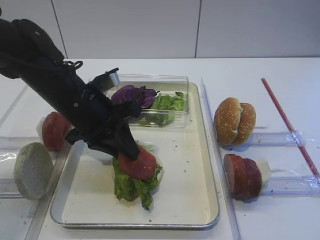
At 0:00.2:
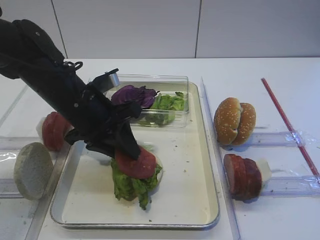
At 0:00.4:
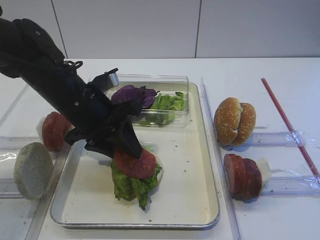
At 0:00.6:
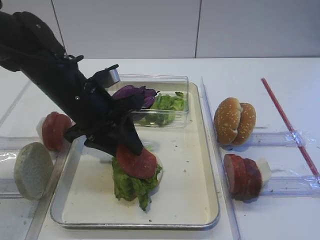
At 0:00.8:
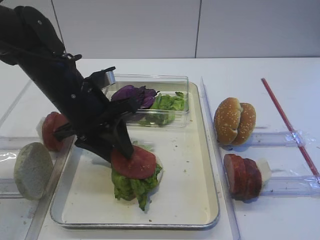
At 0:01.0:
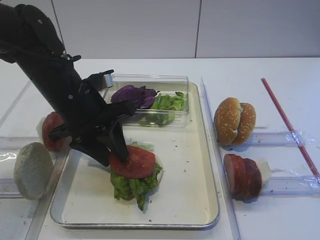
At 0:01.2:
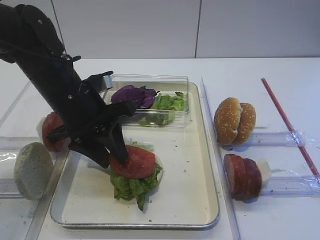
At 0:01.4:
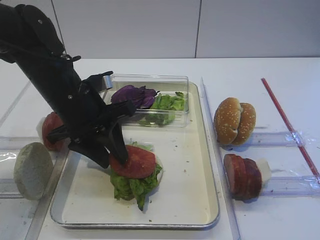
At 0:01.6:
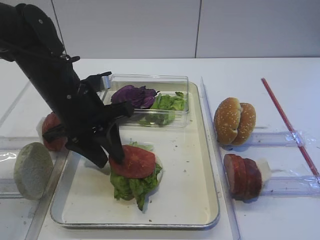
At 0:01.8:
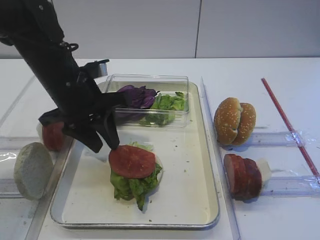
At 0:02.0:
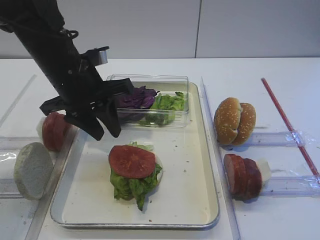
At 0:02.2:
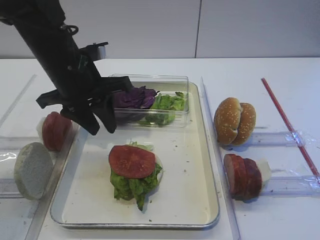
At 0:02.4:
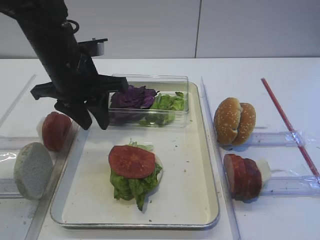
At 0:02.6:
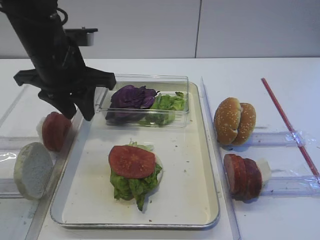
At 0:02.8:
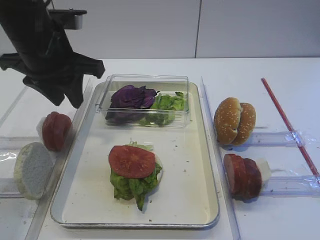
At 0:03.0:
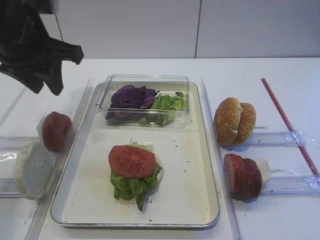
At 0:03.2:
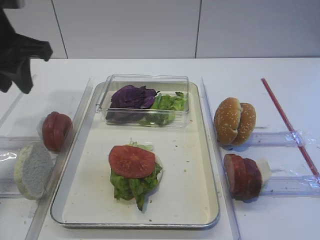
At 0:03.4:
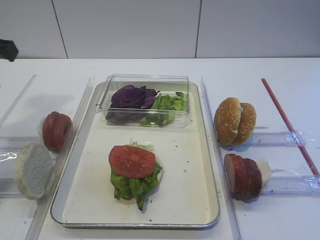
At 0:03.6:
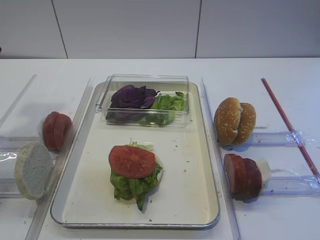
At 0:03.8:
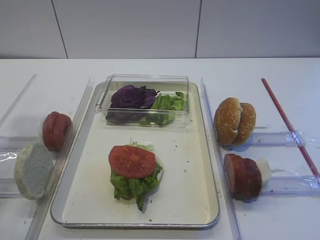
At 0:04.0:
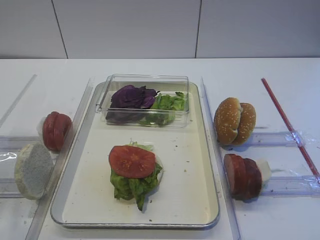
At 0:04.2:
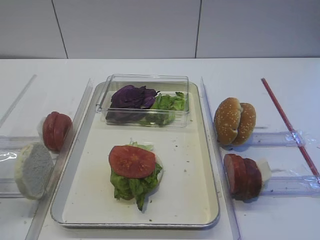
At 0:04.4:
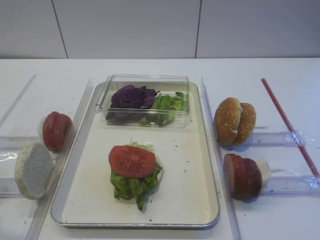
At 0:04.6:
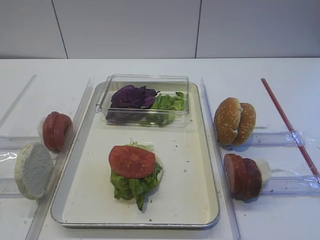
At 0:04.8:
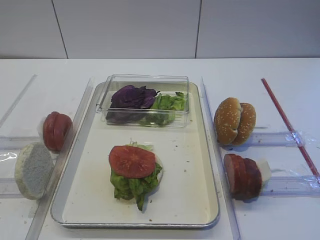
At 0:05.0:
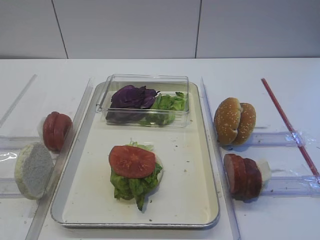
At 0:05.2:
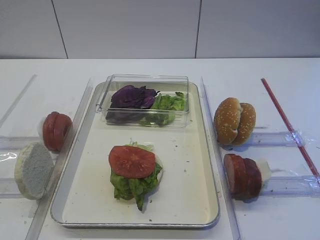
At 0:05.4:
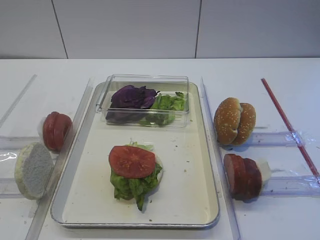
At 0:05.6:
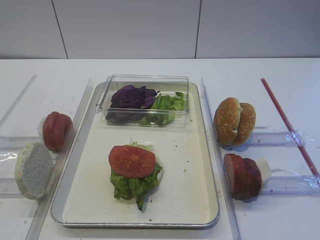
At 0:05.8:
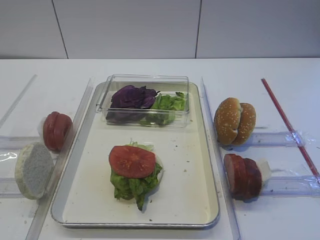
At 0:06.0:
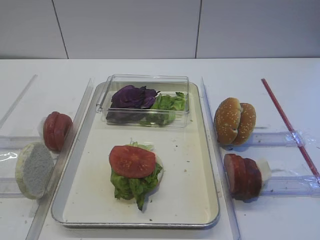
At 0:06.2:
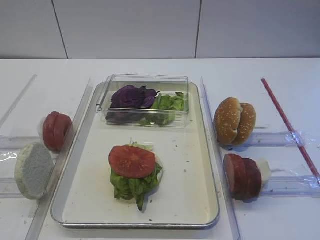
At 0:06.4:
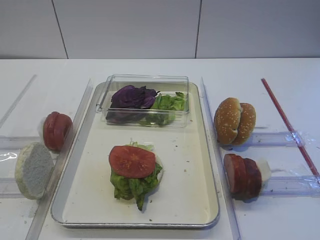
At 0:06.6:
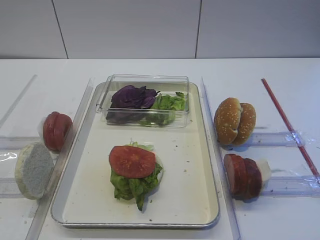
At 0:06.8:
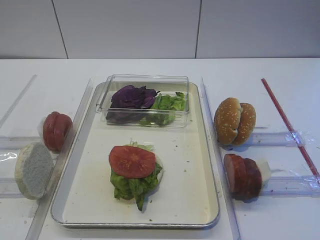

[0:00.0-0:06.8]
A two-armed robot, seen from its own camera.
0:00.0 to 0:01.4: The left gripper opens.
0:01.4 to 0:02.8: The left gripper moves upward, approximately 10 cm.
0:02.8 to 0:04.0: The left gripper moves backward and to the left, some 20 cm.
0:04.0 to 0:05.4: The left gripper shifts roughly 20 cm backward and downward.
0:05.4 to 0:06.8: Both grippers stay about where they are.
